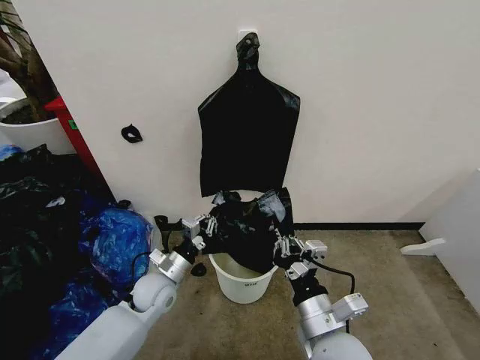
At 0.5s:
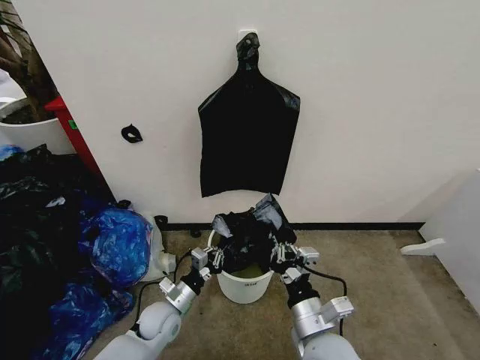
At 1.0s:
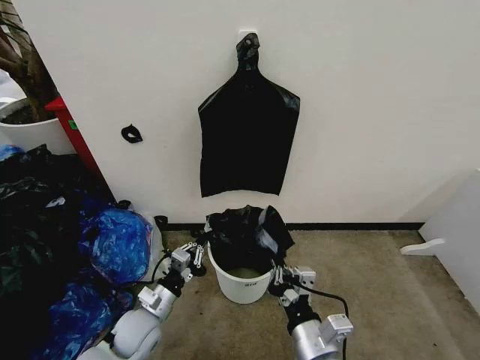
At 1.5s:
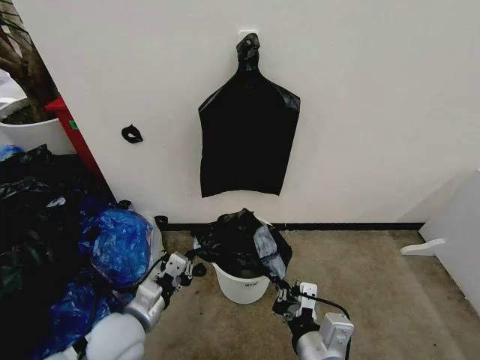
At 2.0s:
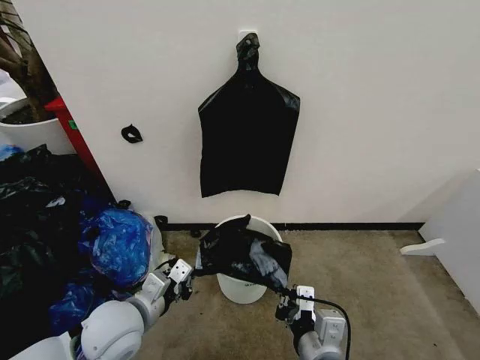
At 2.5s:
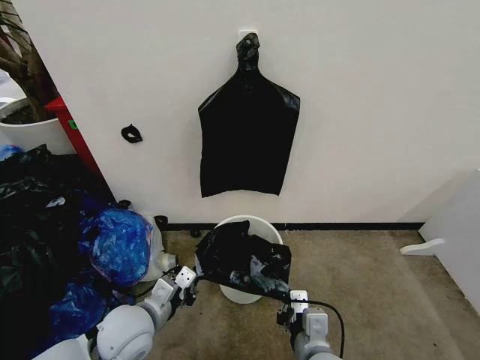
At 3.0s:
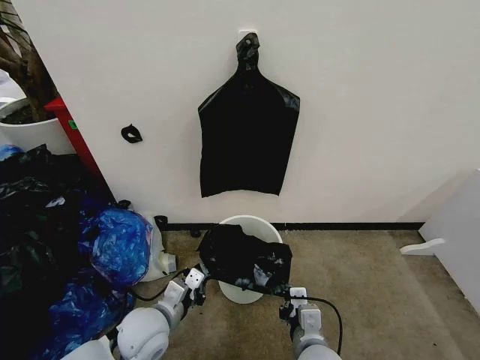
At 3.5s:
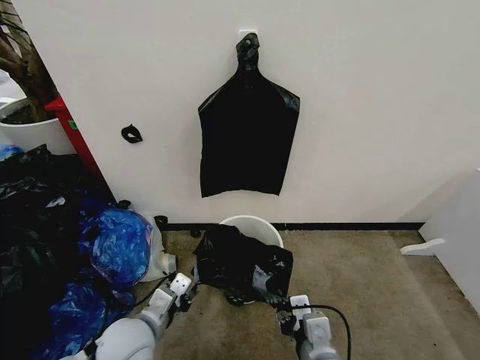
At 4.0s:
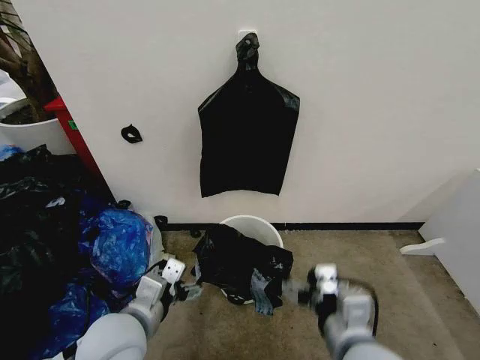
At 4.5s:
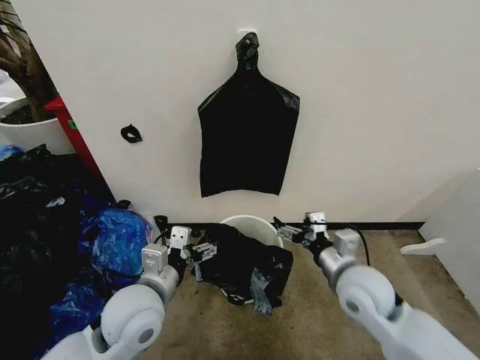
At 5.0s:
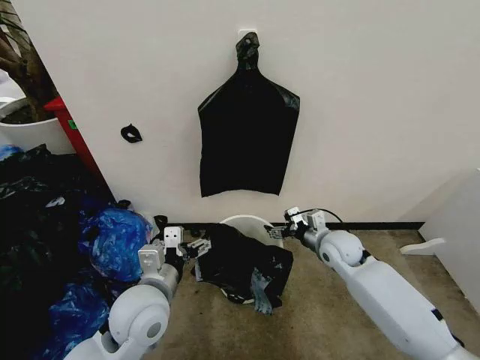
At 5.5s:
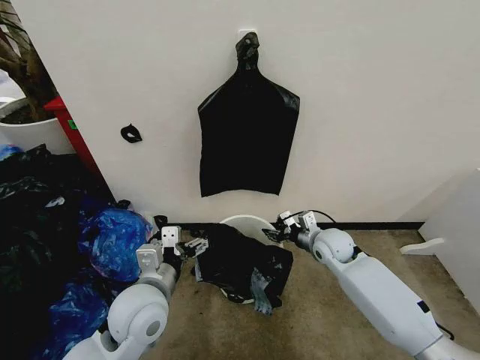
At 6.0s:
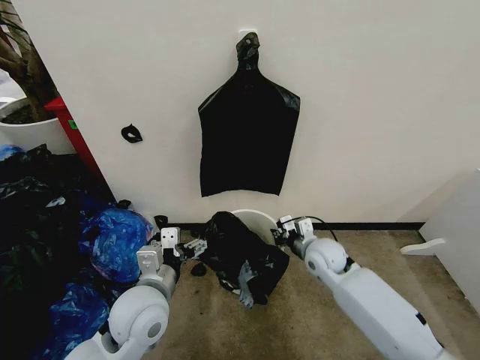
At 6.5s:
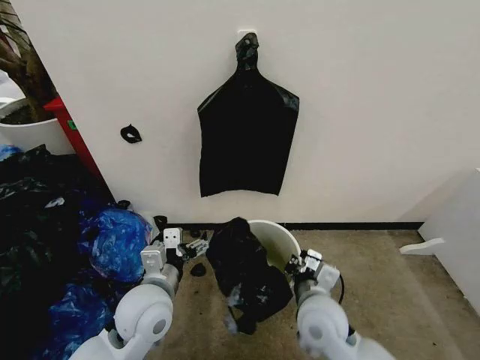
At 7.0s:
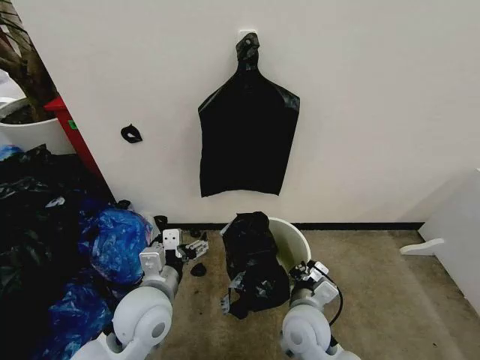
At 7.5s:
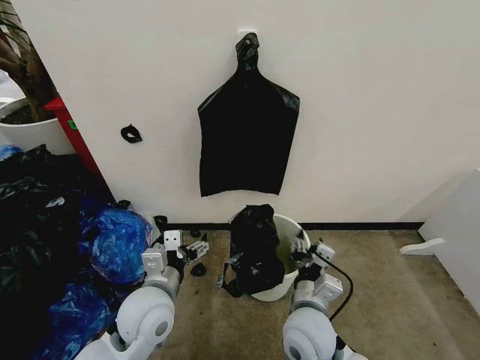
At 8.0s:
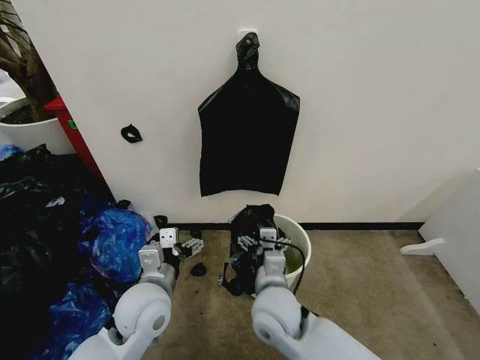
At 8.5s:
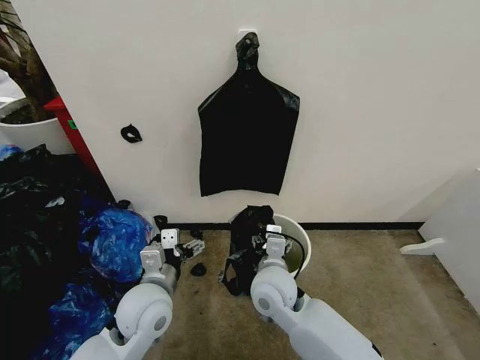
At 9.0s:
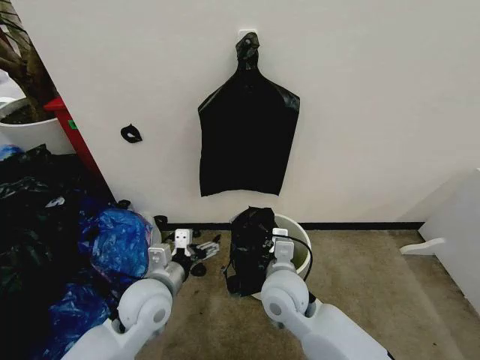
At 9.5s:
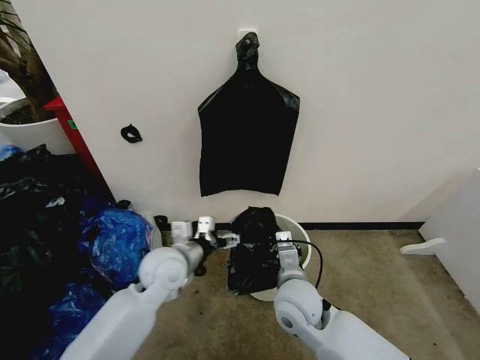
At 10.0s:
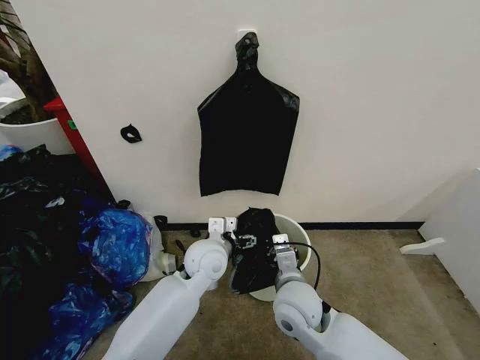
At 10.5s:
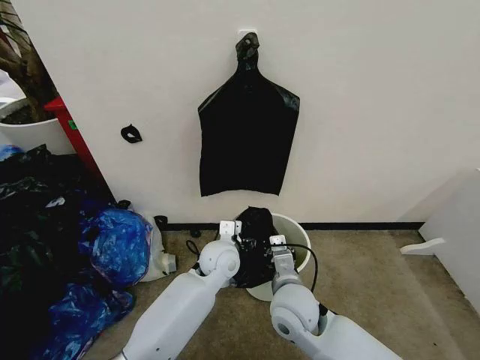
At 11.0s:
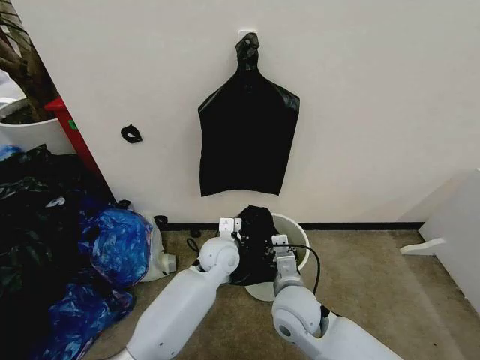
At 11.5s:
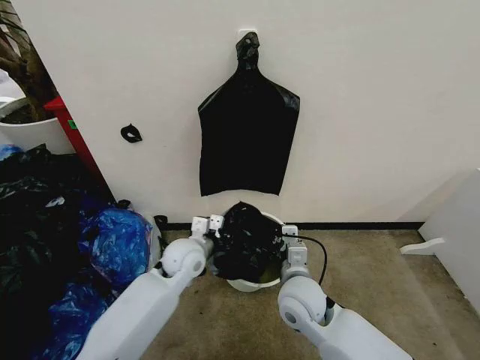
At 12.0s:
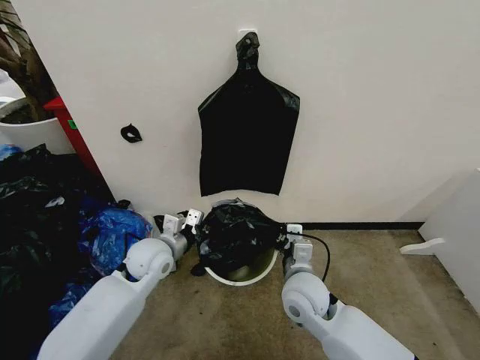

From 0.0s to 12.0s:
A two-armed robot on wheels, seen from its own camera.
Task of the whole recording: Place the garbage bag over the trash bin.
From 0.0s to 2.0s: The left gripper shifts some 15 cm upward and backward.
From 2.0s to 4.0s: The right gripper is displaced upward by about 5 cm, and opens; the left gripper travels downward and back again, some 10 cm each way, and opens up.
From 4.0s to 6.0s: The right gripper moves forward and downward, about 30 cm, and closes its fingers. Meanwhile the left gripper travels forward by roughly 5 cm.
From 6.0s to 8.0s: The right gripper travels backward and to the left by some 20 cm, and opens.
From 8.0s to 10.0s: The right gripper closes. The left gripper travels forward and to the right by roughly 15 cm.
From 10.0s to 12.0s: The left gripper goes some 15 cm to the left, and closes its fingers.

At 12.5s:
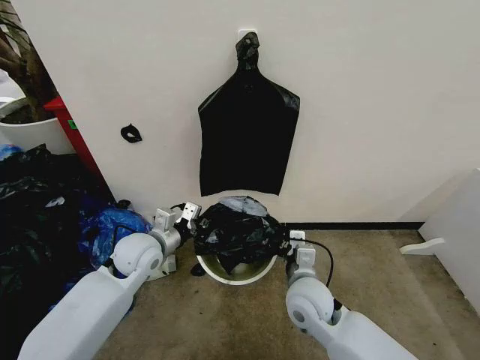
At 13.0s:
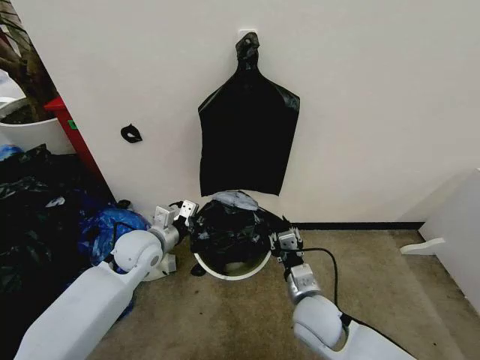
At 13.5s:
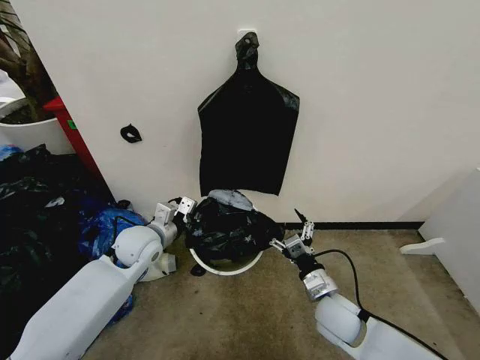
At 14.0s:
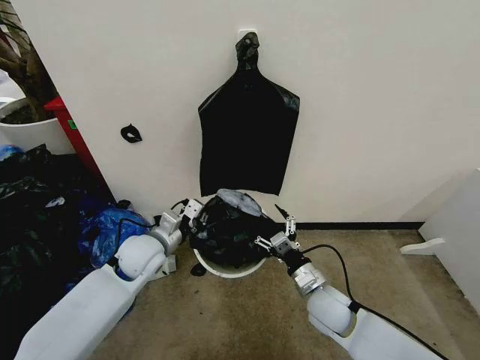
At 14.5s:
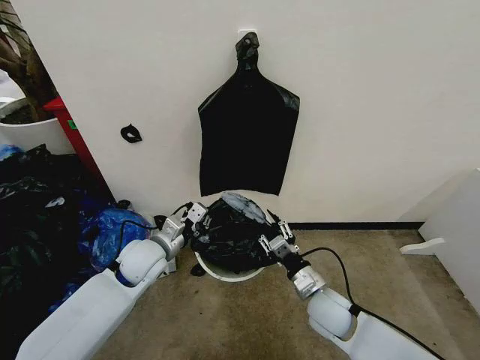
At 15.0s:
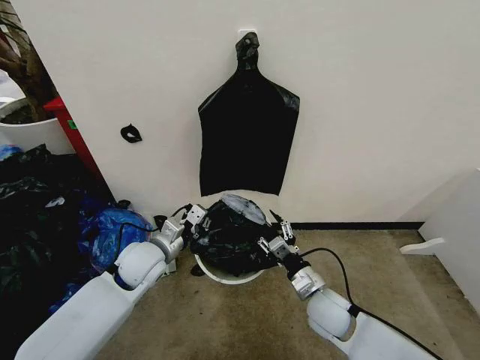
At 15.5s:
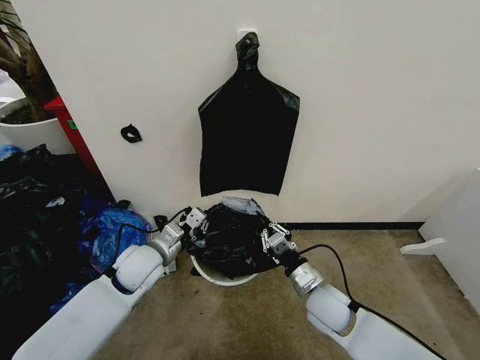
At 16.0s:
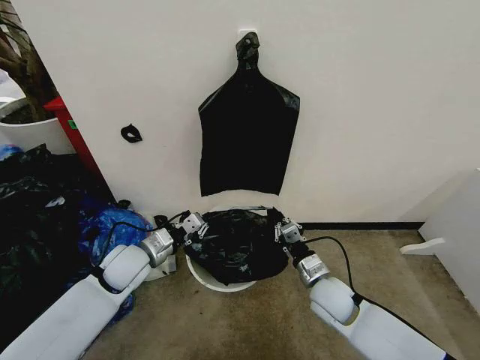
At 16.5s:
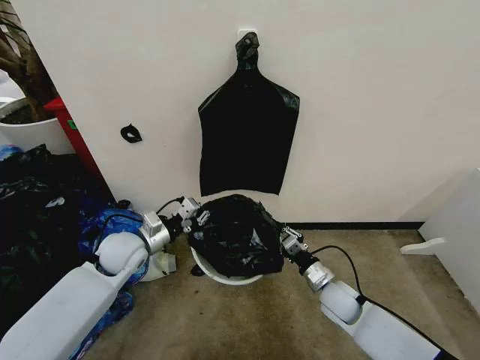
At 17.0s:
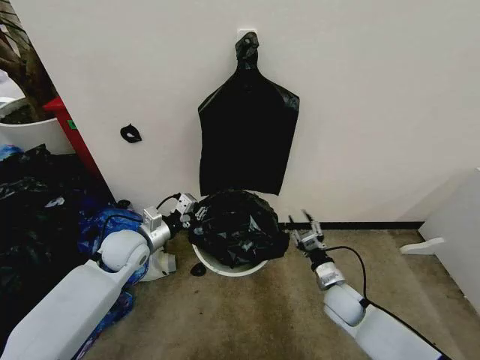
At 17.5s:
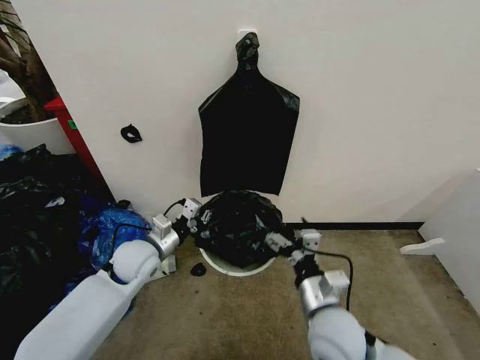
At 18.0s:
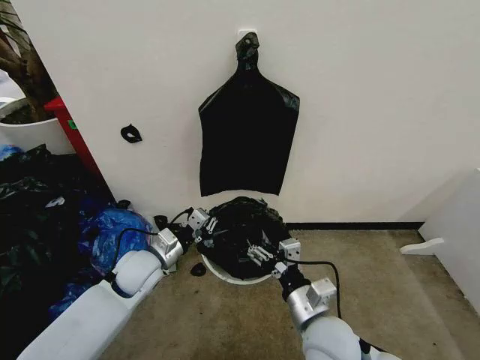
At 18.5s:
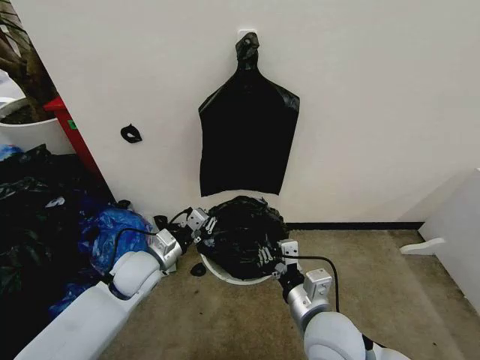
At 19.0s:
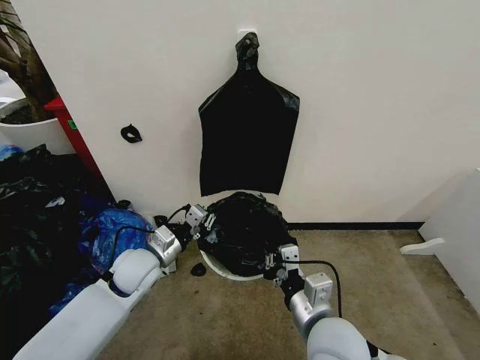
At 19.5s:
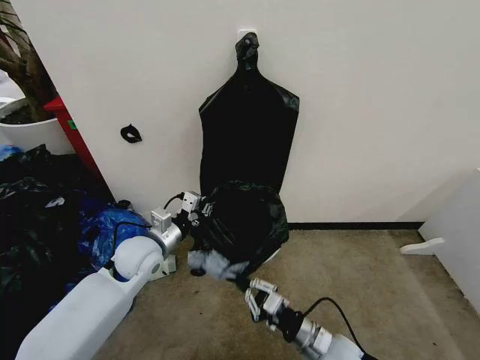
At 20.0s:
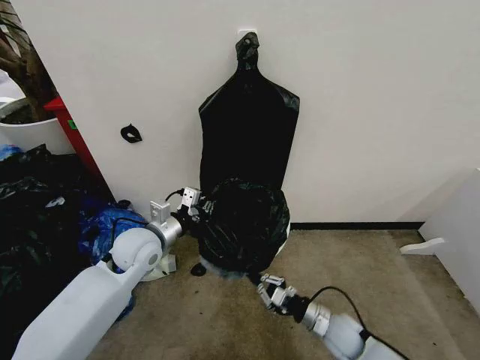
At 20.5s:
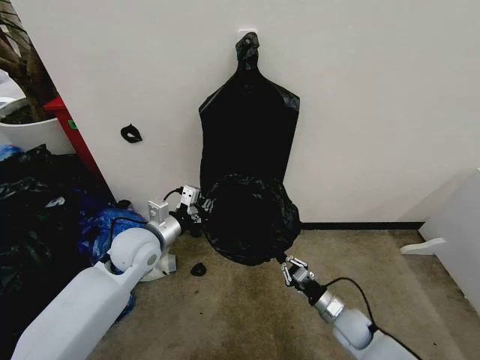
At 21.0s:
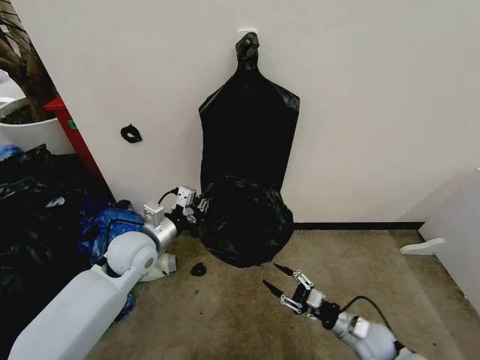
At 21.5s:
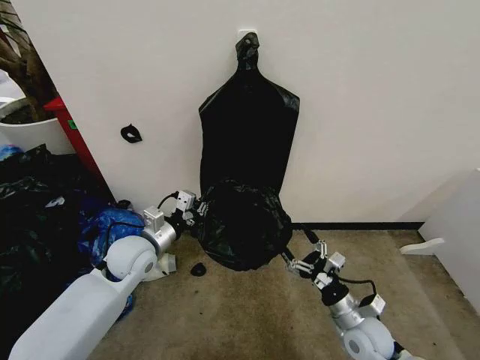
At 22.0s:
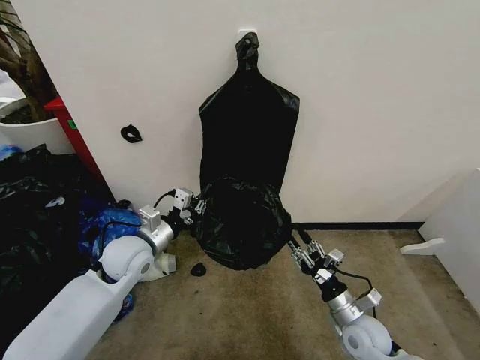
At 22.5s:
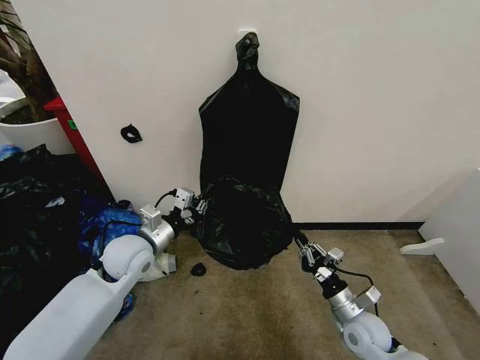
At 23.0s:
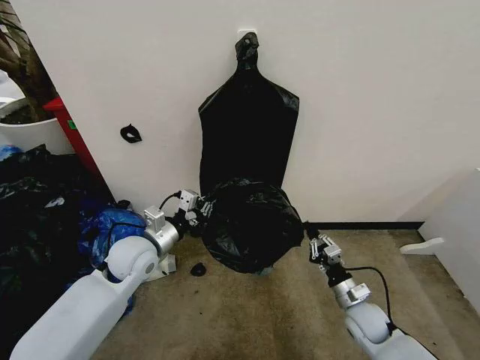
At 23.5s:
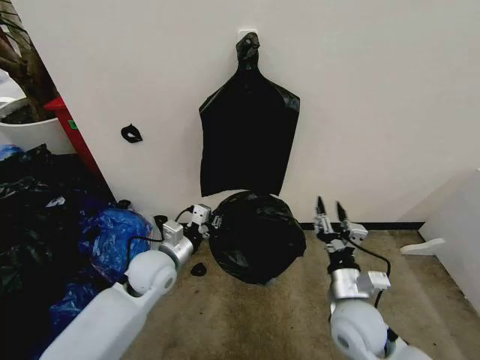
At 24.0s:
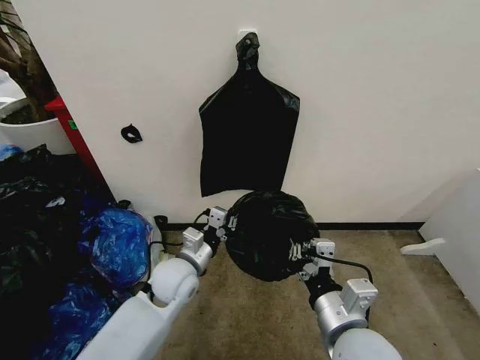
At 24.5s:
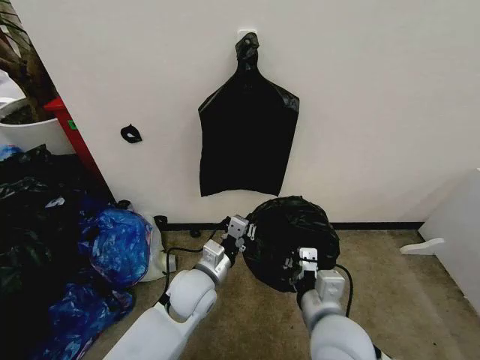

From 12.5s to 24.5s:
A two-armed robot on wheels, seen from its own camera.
Task of the whole recording: Place the garbage bag over the trash bin.
From 12.5s to 14.5s: The right gripper heads to the right and downward, covering approximately 10 cm, and opens up.
From 14.5s to 16.5s: The right gripper heads to the right and downward, covering some 10 cm, and closes up, while the left gripper goes roughly 5 cm to the left.
From 16.5s to 18.5s: The right gripper travels upward, backward and to the left by some 25 cm, and opens, then closes again; the left gripper shifts by some 5 cm.
From 18.5s to 20.5s: The left gripper travels upward by some 5 cm. The right gripper goes some 25 cm downward and to the right.
From 20.5s to 22.5s: The right gripper goes approximately 10 cm upward, and opens, then closes once more.
From 22.5s to 24.5s: The right gripper moves upward and to the left, about 20 cm, and opens, then closes once more, while the left gripper is displaced to the right, downward and backward by approximately 15 cm.

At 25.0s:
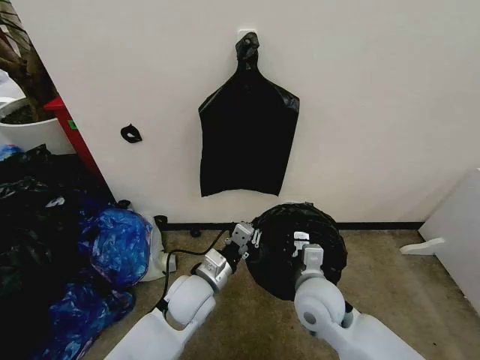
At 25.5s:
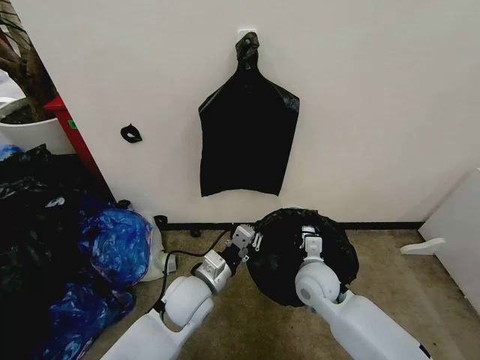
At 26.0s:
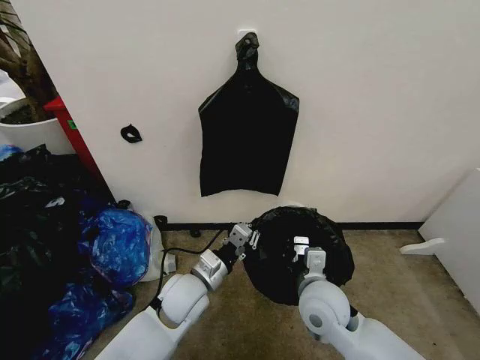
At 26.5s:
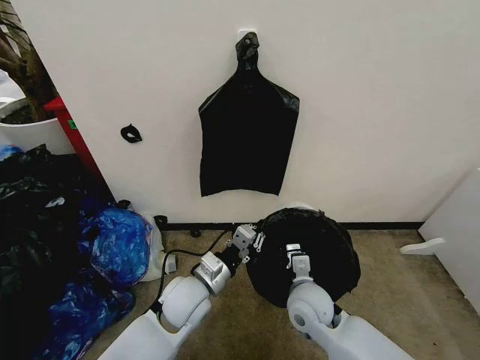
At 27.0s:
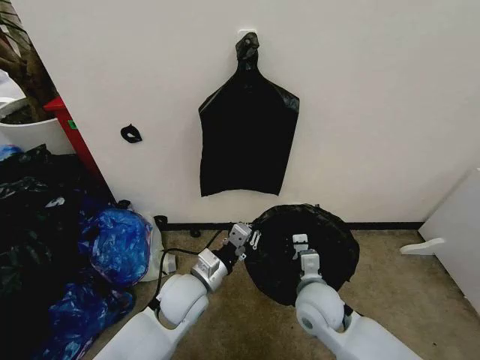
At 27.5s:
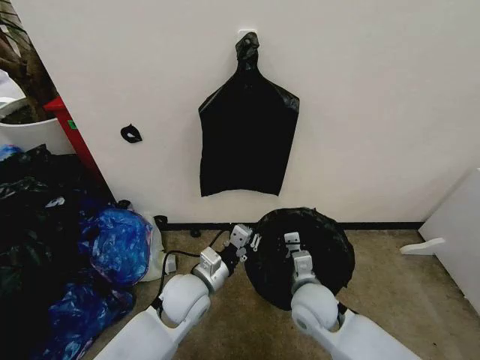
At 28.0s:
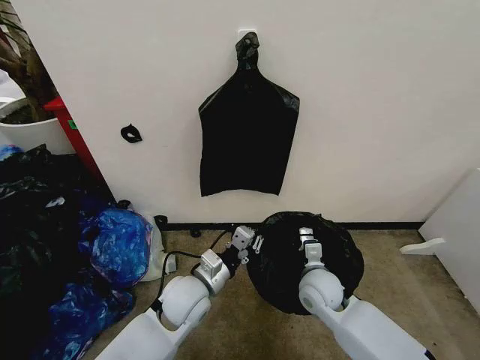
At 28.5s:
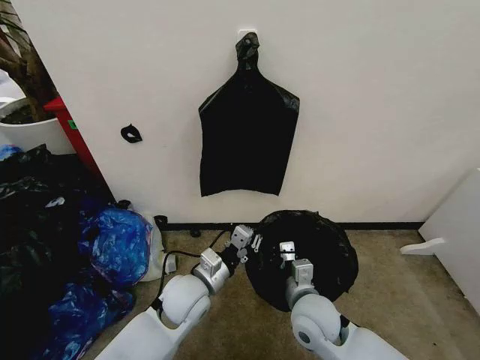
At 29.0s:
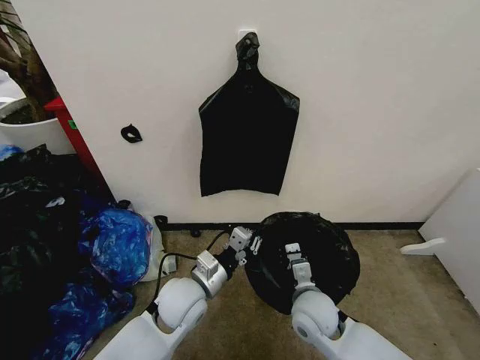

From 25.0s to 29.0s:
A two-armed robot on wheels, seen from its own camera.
Task of the whole recording: Place the garbage bag over the trash bin.
From 27.0s to 29.0s: The grippers stay close to where they were, moving slightly.
